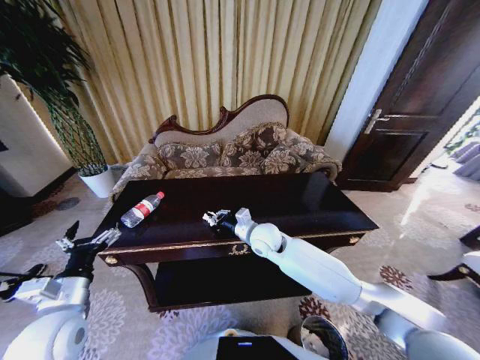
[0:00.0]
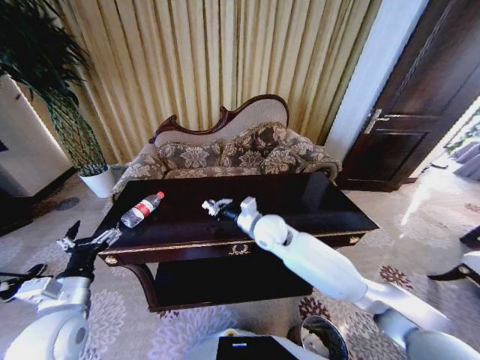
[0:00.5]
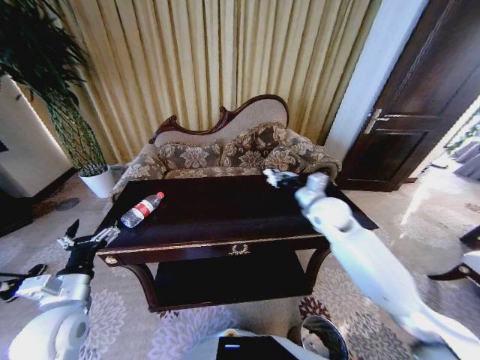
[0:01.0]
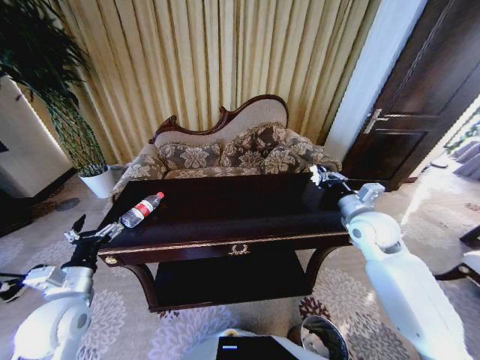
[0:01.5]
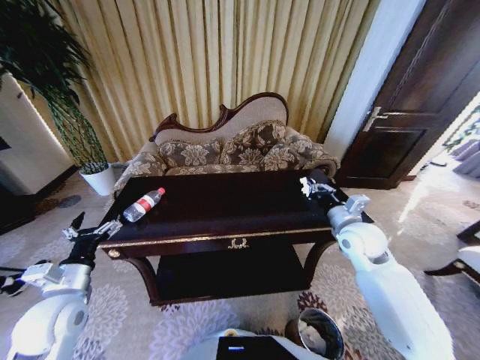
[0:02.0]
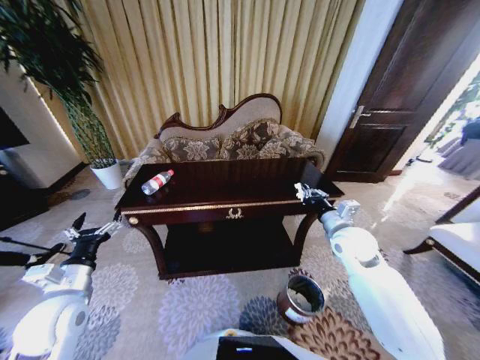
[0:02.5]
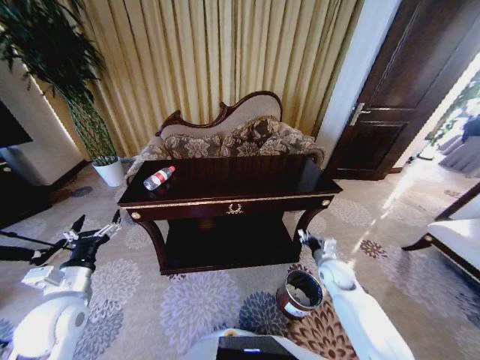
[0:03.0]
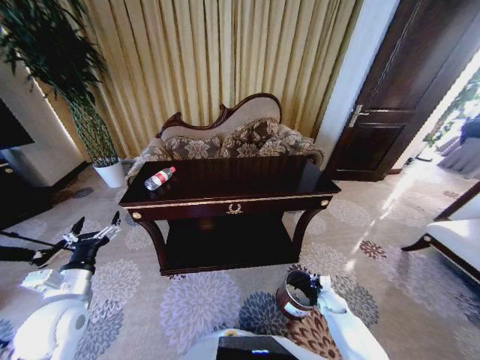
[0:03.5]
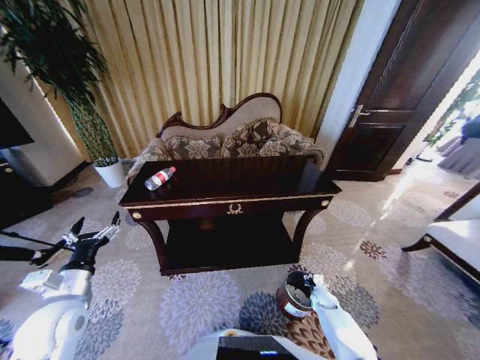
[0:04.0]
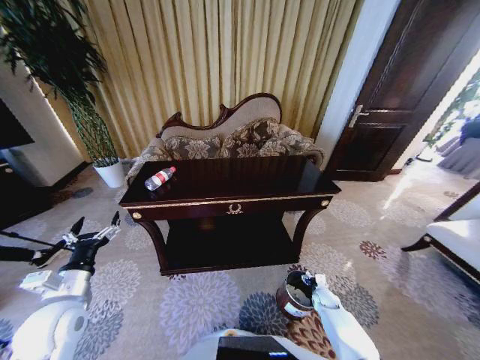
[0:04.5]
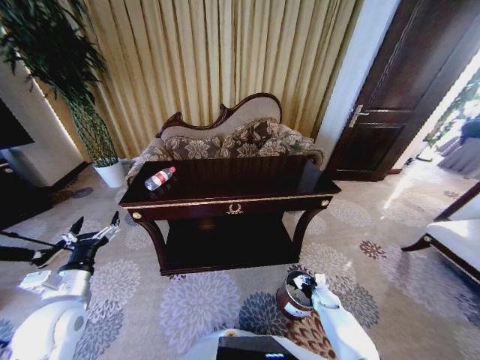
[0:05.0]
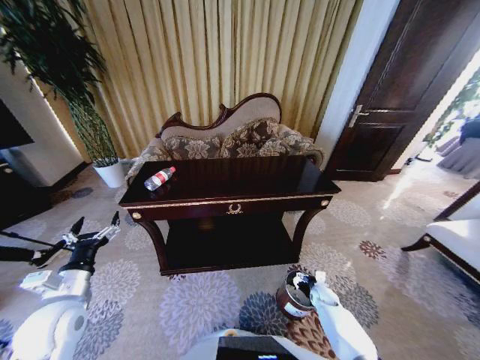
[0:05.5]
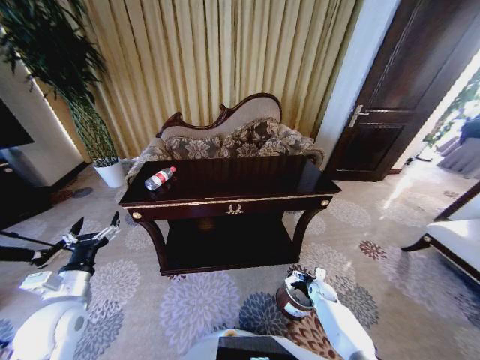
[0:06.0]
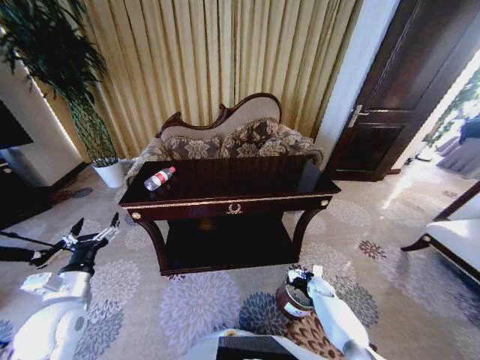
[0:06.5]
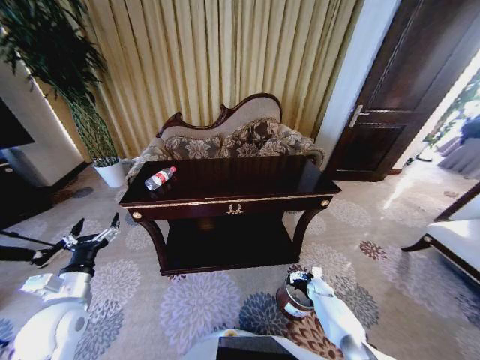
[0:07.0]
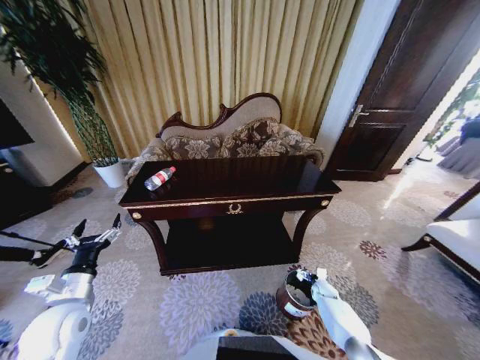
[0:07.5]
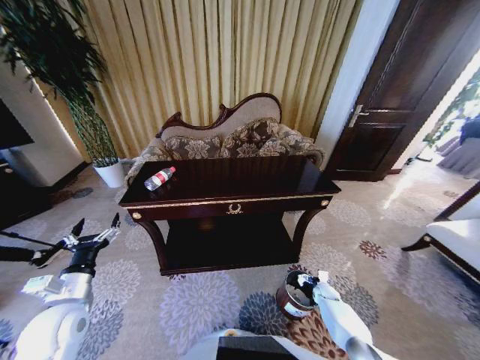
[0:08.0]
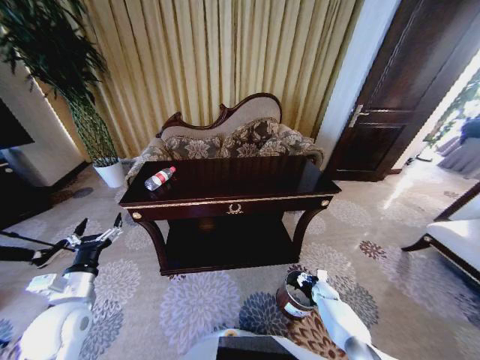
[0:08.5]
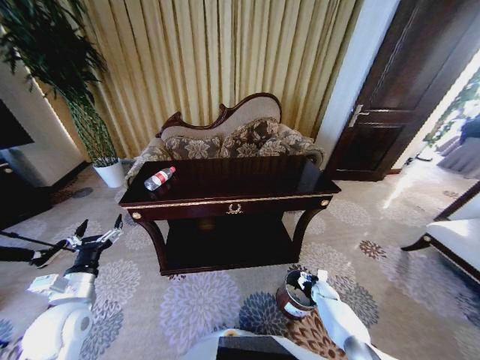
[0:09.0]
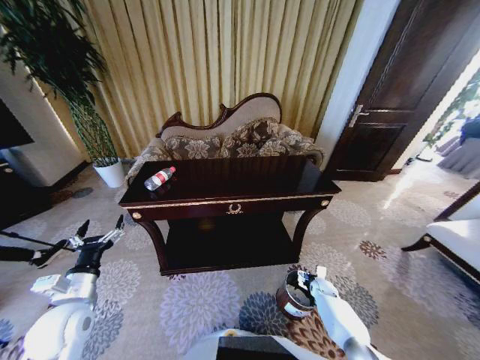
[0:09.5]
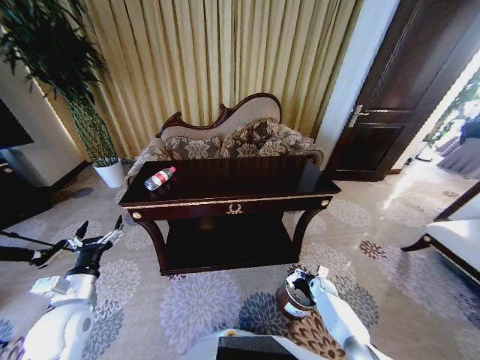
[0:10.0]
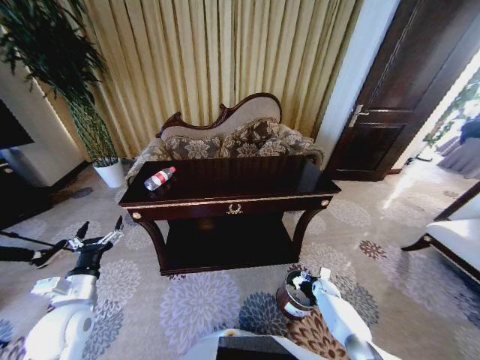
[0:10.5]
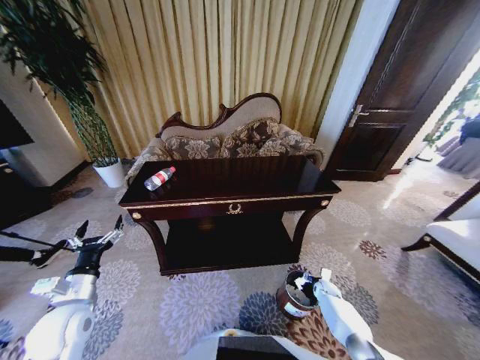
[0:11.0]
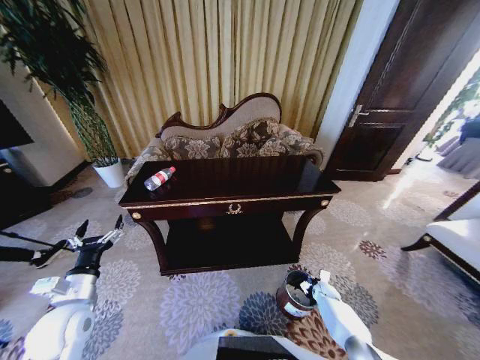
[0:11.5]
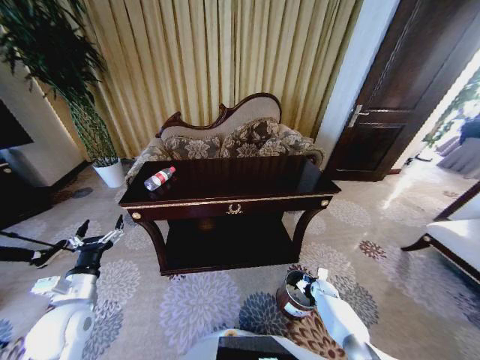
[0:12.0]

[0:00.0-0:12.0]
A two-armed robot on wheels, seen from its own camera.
Task of the whole recording: Move to the front of the table and place the trash on the table into the trash bin.
0:00.0 to 0:02.0: The right gripper moves to the right, some 25 cm.
0:02.0 to 0:04.0: The right gripper heads downward, covering about 40 cm.
0:04.0 to 0:06.0: The right gripper opens up.
0:06.0 to 0:08.0: The grippers stay close to where they were, moving slightly.
0:10.0 to 0:12.0: The right gripper closes its fingers.

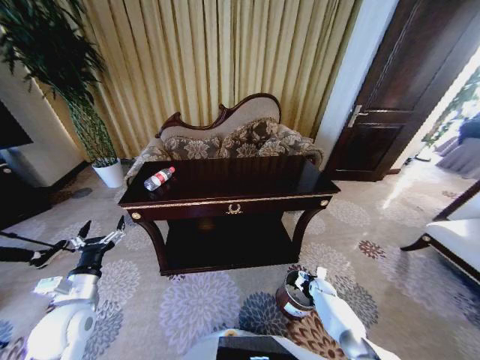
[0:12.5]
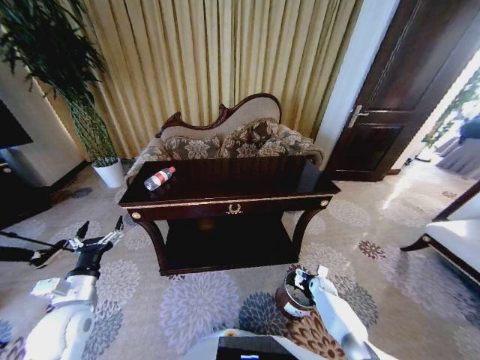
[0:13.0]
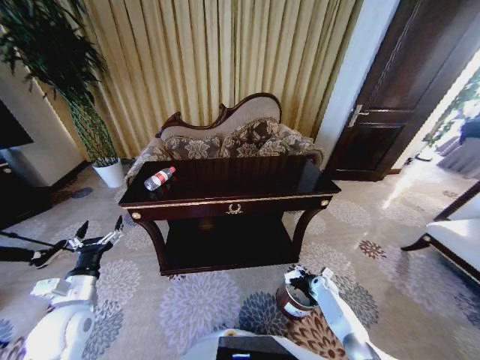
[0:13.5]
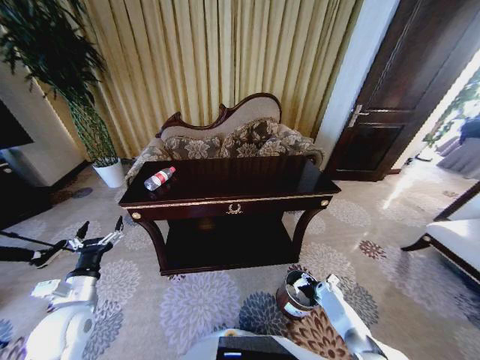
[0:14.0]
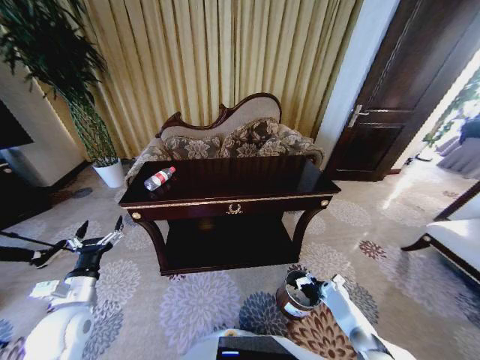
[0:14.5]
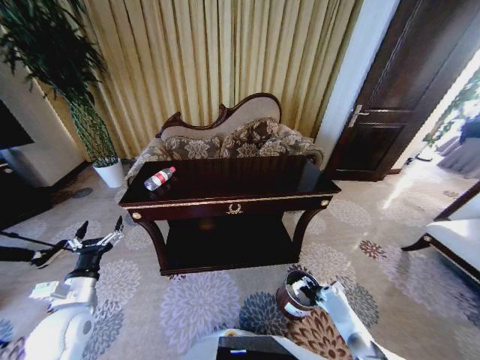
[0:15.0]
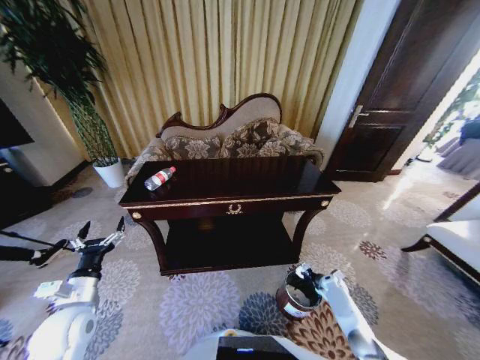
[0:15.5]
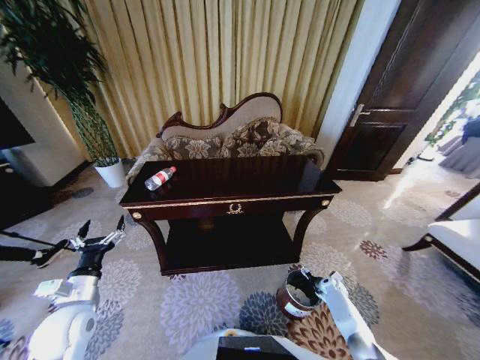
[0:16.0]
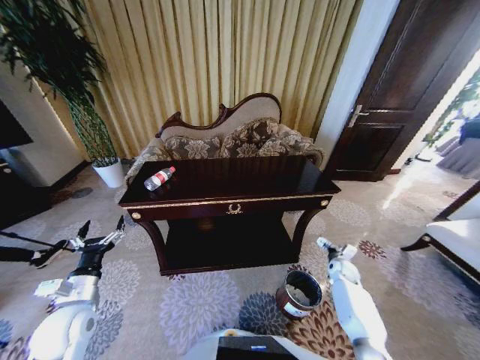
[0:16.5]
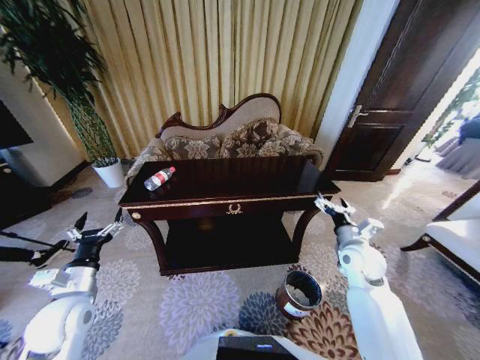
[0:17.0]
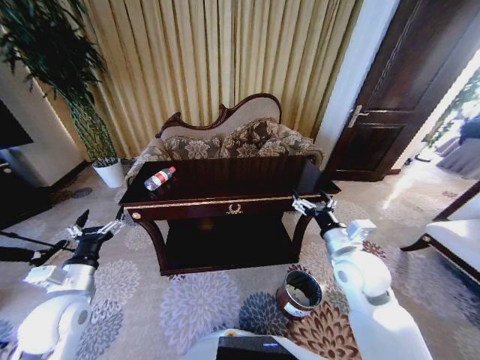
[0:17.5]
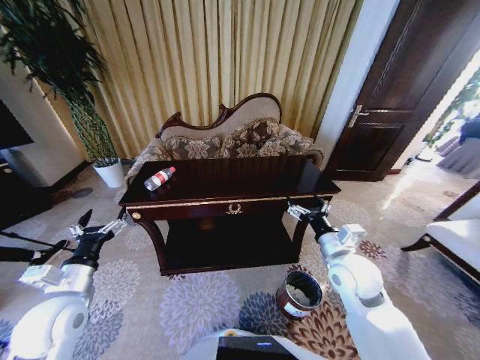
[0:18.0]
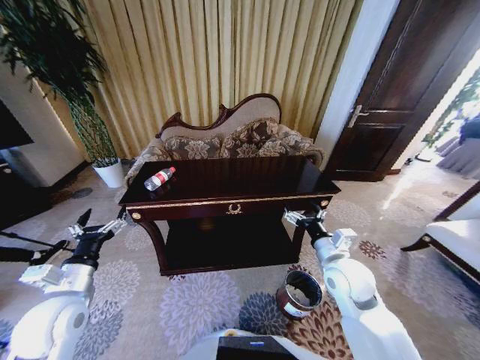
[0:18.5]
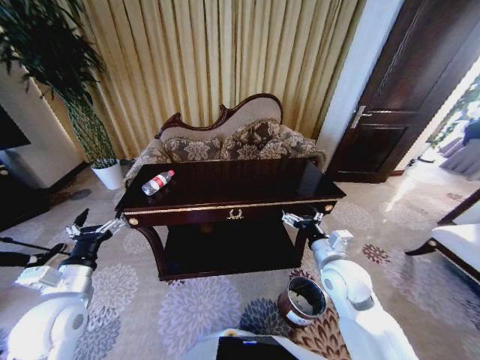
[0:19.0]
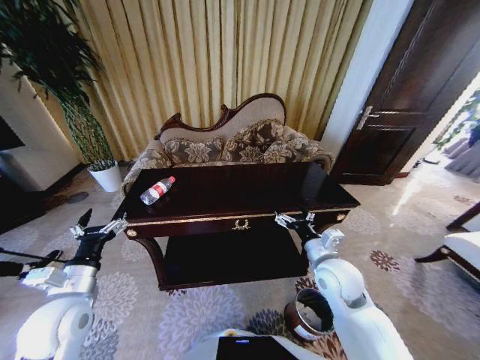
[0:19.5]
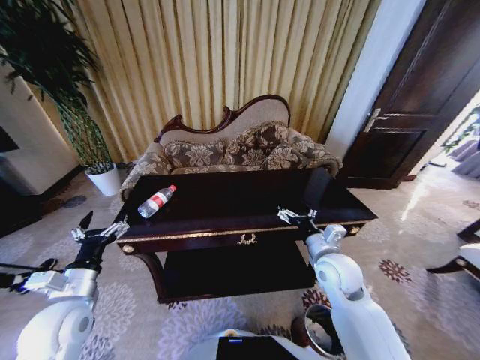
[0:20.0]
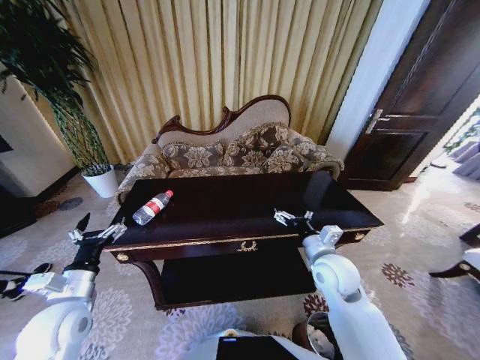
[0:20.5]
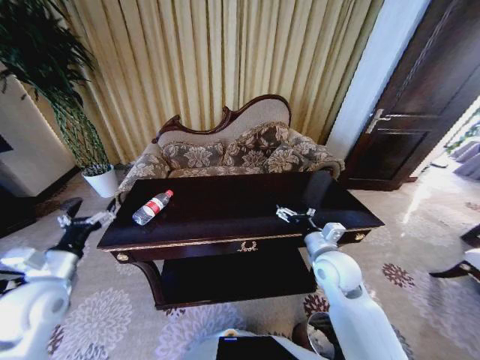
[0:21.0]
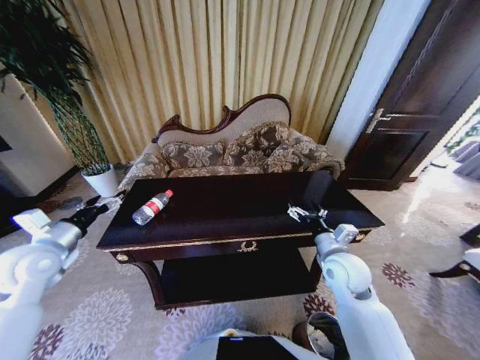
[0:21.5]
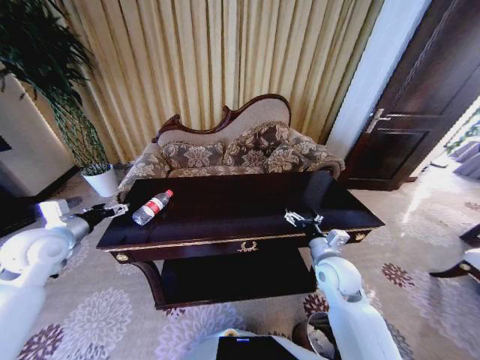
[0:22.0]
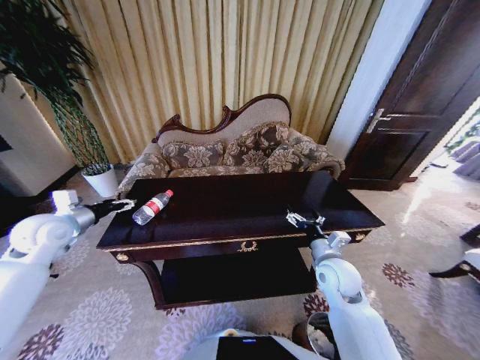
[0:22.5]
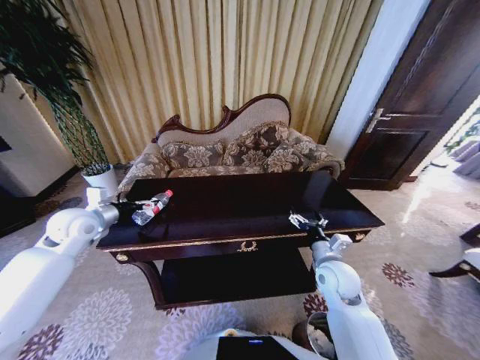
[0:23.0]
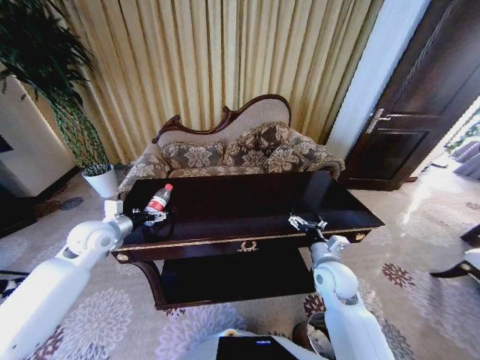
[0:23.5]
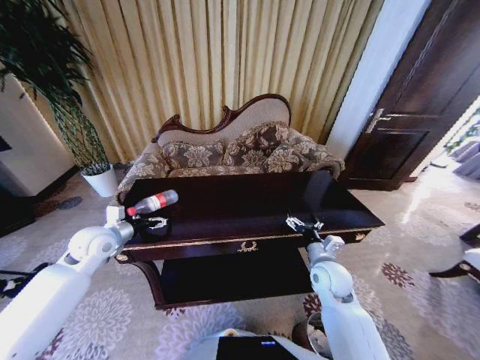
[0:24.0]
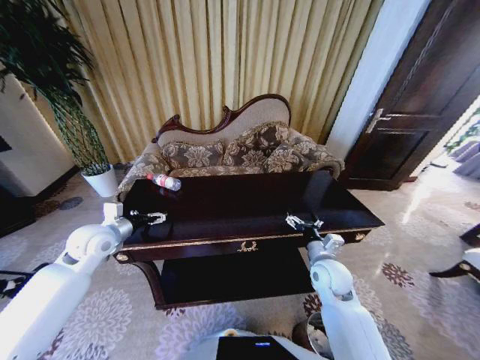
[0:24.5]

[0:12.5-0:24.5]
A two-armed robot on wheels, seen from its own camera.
Task of the whole recording: Move to the front of the table and place the trash on the table into the trash bin.
0:12.5 to 0:14.5: The right gripper travels to the right by approximately 5 cm.
0:14.5 to 0:16.5: The right gripper moves upward, some 15 cm.
0:16.5 to 0:18.5: The left gripper travels upward by roughly 5 cm. Meanwhile the right gripper shifts some 30 cm upward, to the left and backward.
0:20.5 to 0:22.5: The left gripper travels forward, to the left and upward by roughly 20 cm.
0:22.5 to 0:24.5: The left gripper travels to the right by approximately 10 cm.

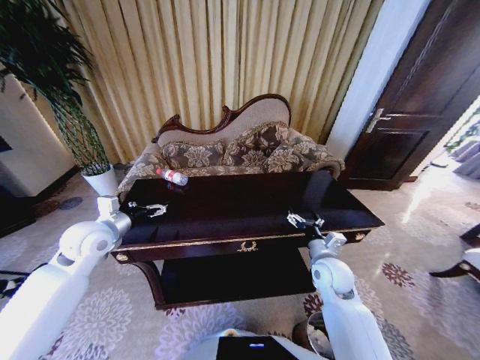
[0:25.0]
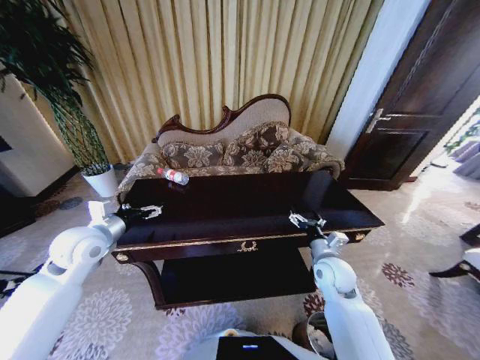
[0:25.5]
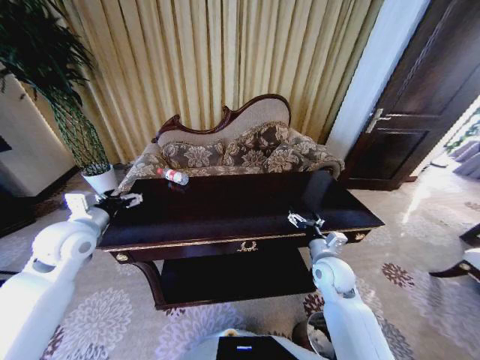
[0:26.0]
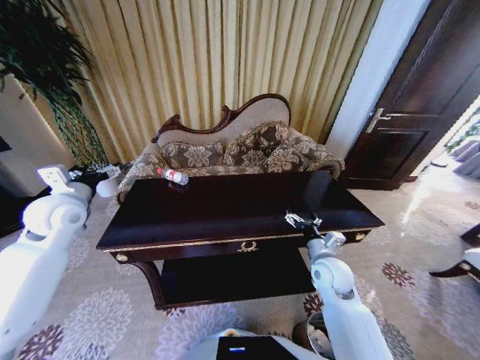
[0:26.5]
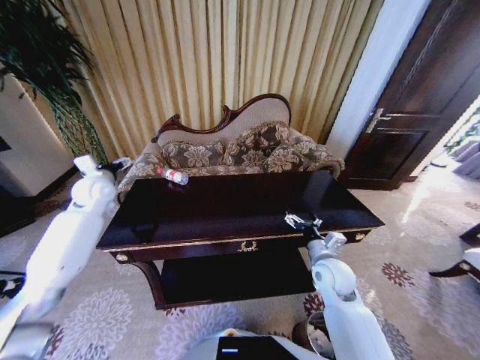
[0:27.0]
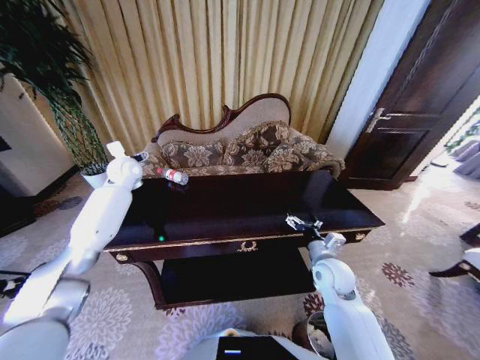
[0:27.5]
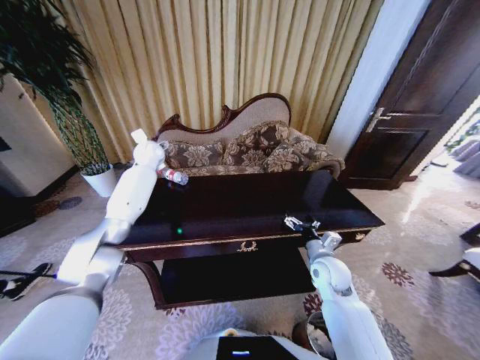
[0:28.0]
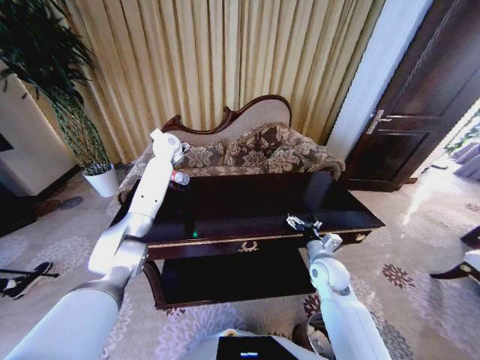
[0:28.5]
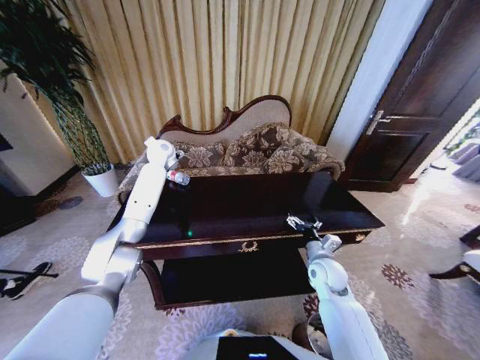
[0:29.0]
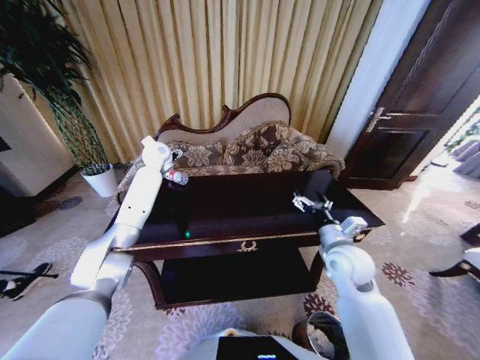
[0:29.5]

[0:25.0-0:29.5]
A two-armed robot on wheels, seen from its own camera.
Task of the whole recording: Move to the front of the table and place the trash on the table into the trash bin.
0:25.0 to 0:27.0: The left gripper heads forward, covering about 15 cm.
0:27.0 to 0:29.5: The right gripper heads upward, covering approximately 5 cm, while the left gripper moves to the right and forward, about 20 cm.
